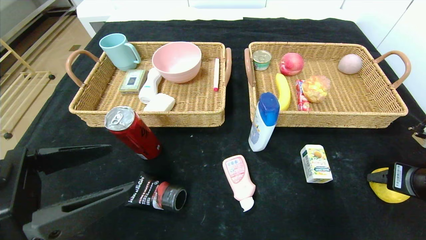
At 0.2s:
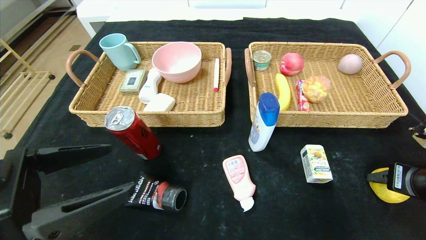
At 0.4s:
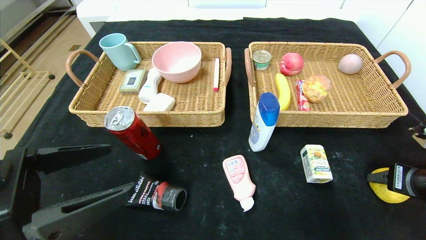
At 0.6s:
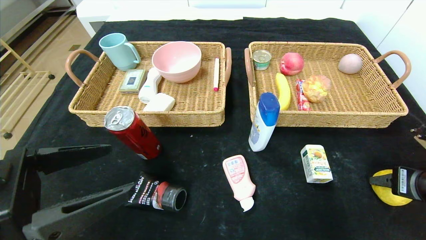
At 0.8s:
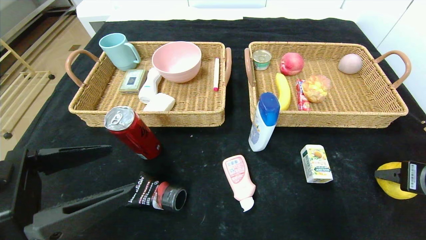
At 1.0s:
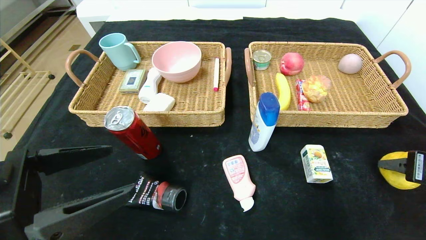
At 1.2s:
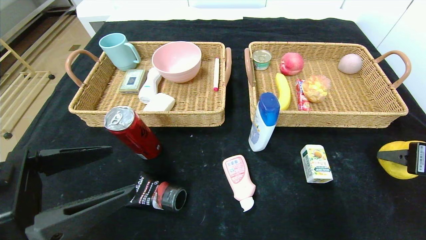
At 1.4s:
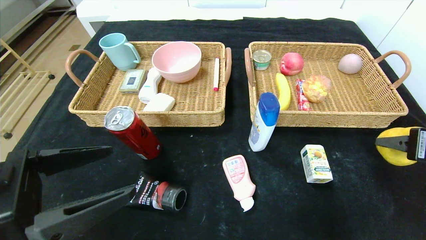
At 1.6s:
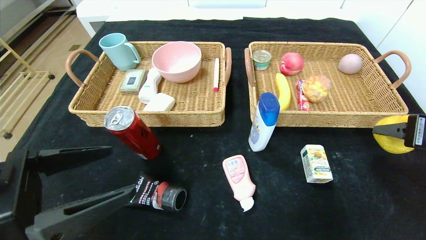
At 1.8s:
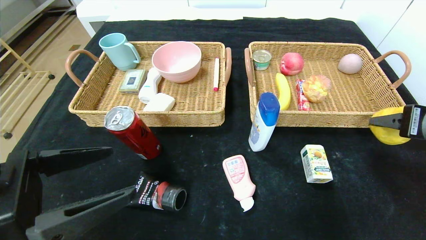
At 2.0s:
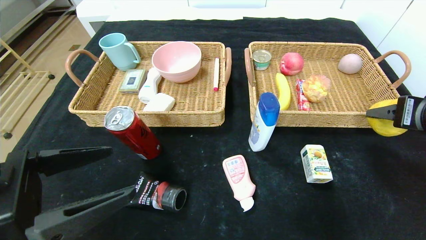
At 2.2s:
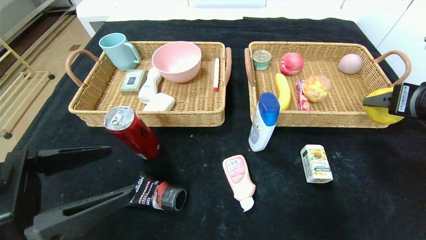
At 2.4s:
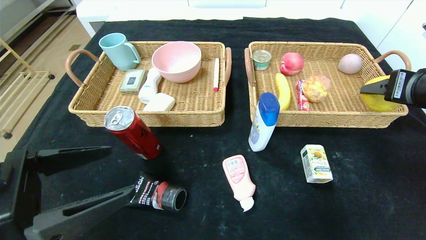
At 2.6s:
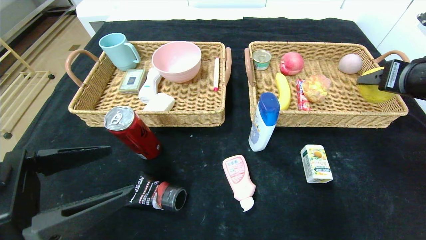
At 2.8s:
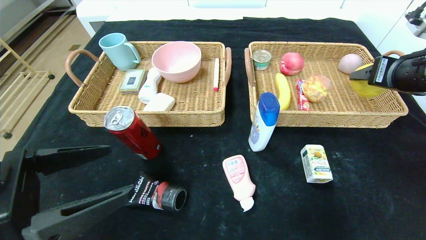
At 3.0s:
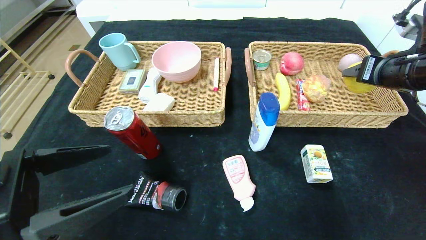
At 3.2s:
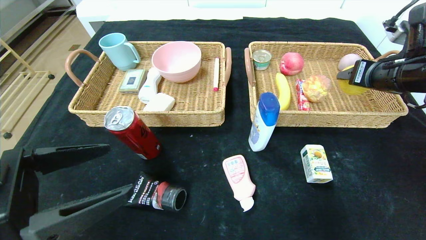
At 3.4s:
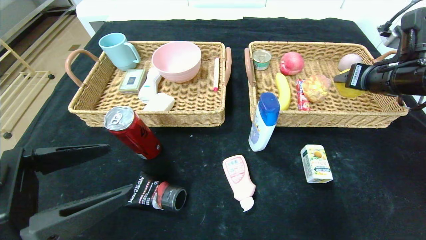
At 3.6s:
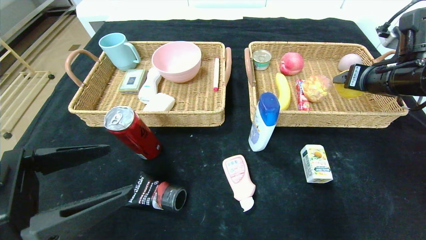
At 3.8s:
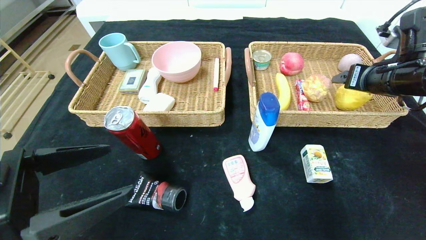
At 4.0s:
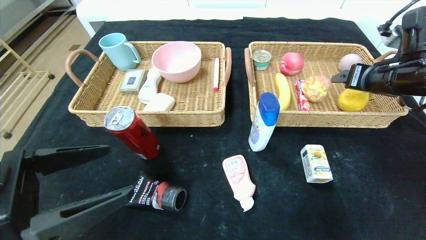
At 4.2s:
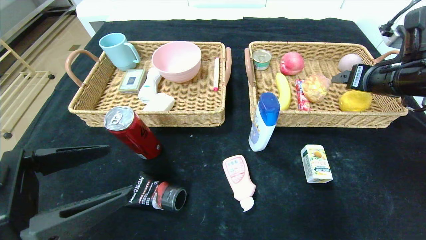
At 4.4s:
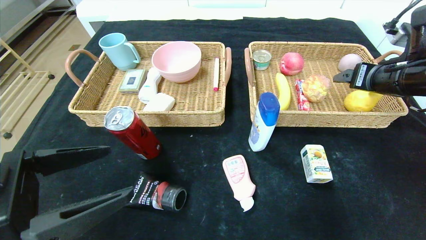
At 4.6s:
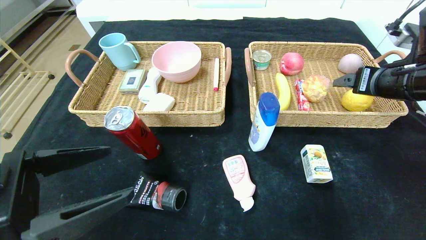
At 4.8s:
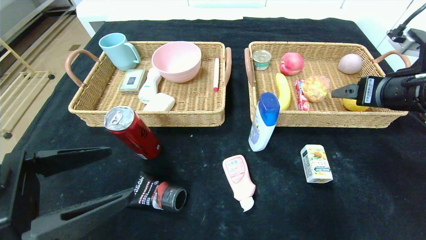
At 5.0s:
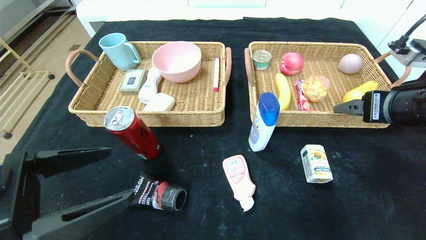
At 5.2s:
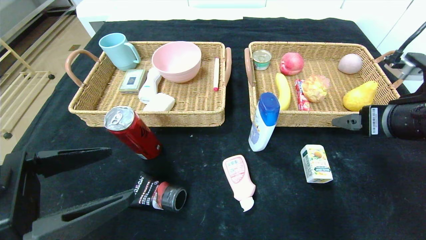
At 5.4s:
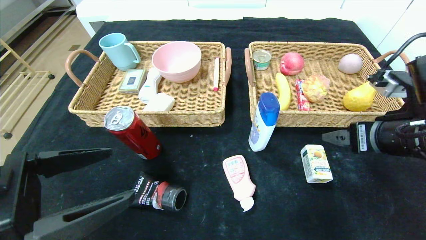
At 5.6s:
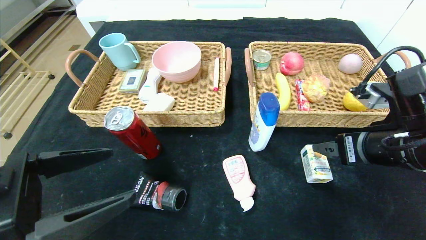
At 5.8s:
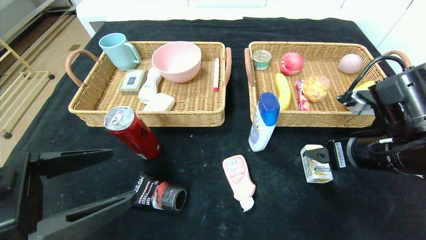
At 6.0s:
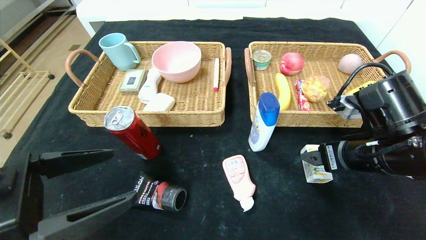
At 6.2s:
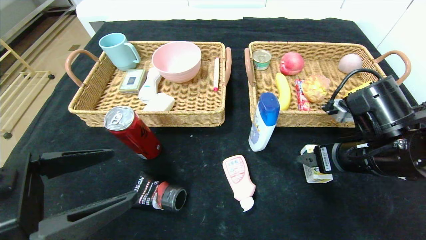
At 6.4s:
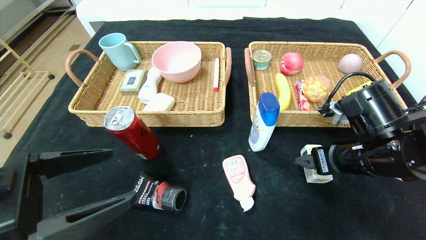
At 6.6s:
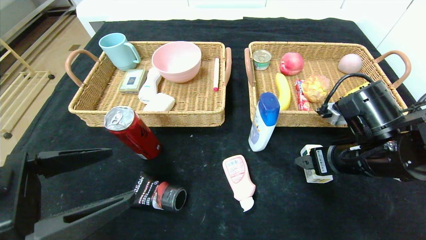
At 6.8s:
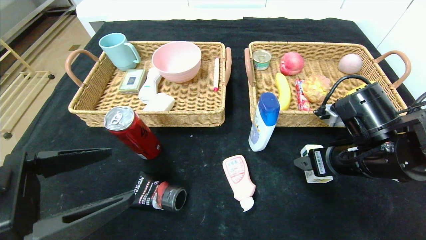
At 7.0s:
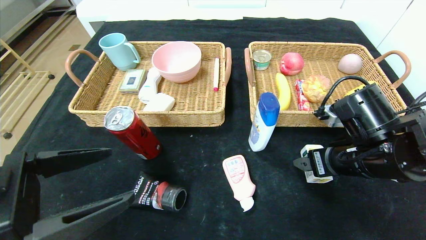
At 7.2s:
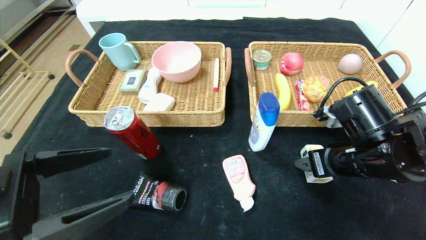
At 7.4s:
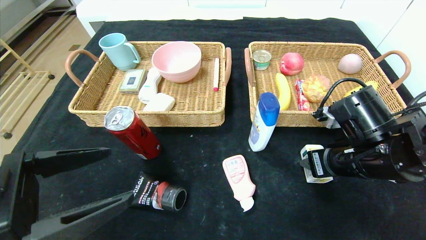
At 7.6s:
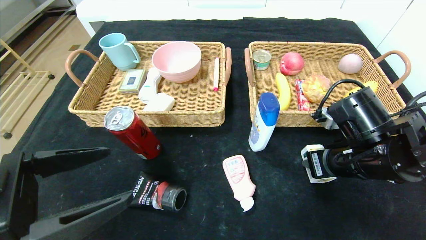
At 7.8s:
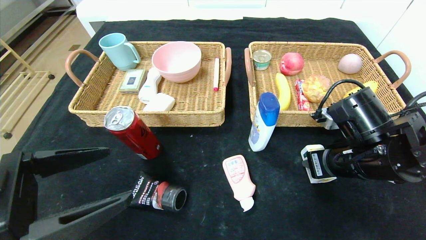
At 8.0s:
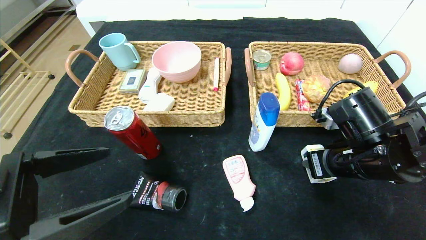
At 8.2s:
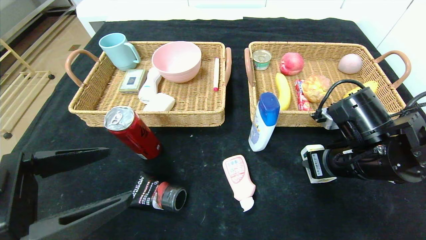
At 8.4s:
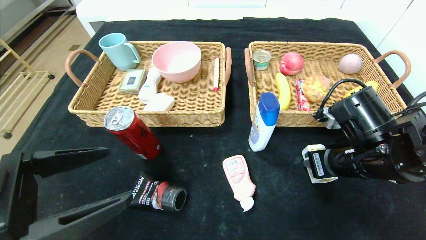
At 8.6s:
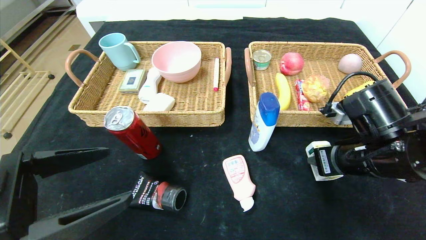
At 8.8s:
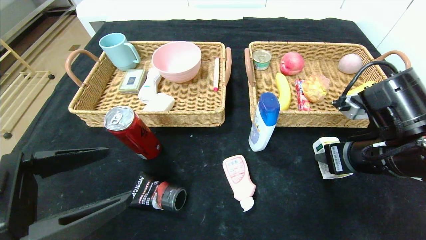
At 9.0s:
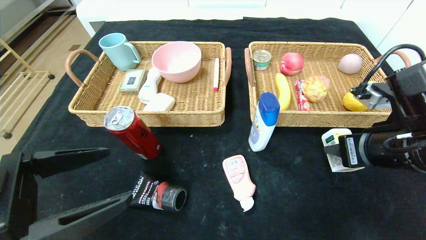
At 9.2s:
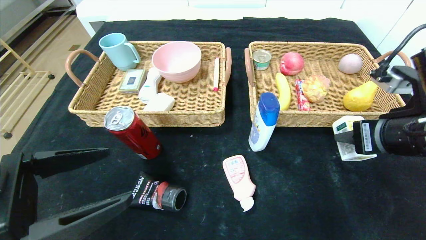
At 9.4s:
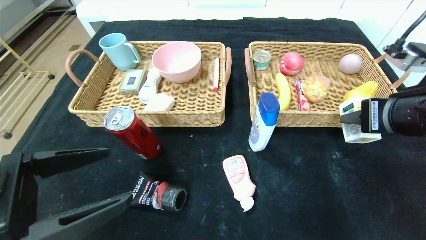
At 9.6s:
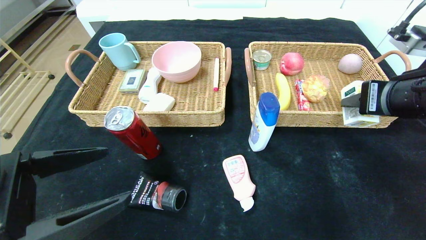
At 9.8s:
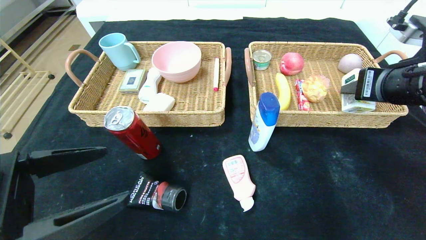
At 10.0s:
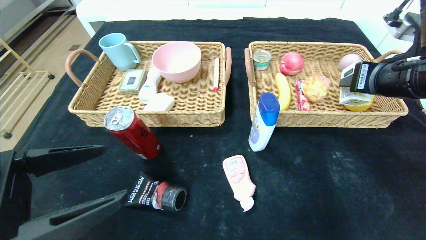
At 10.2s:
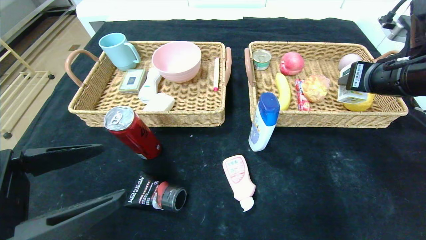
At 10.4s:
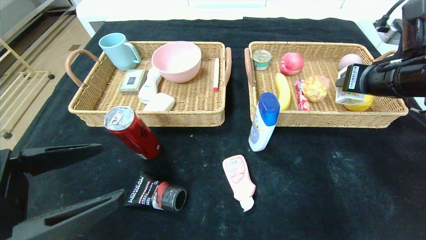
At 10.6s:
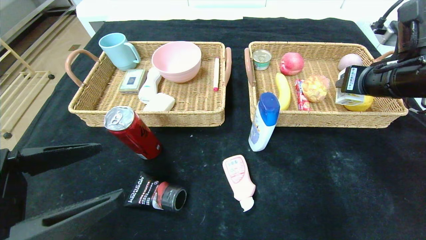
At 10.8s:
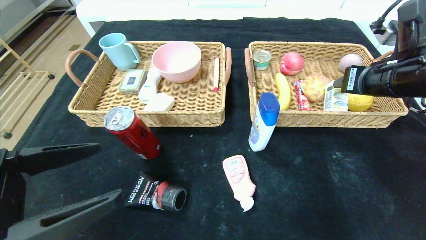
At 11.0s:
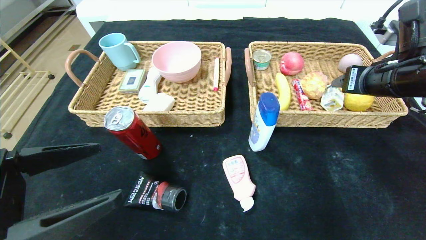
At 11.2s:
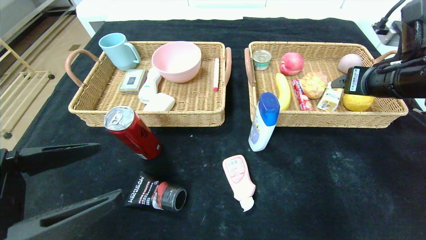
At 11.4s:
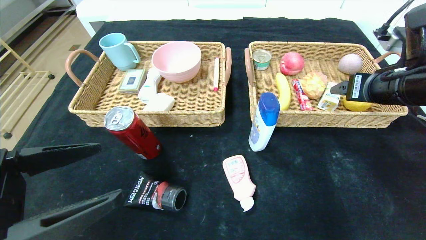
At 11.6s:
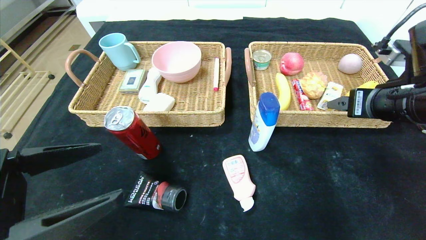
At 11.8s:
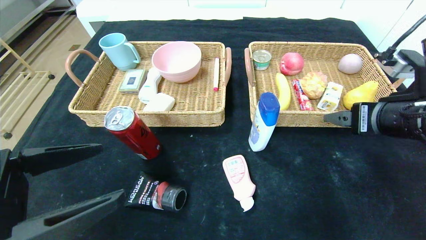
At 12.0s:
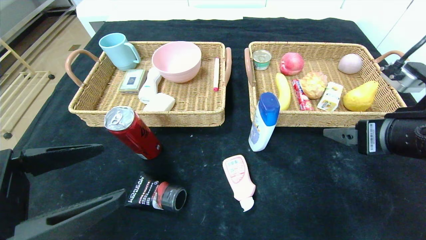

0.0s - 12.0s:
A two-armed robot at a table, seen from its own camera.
Step, 0.0s - 4.2s: Grasp the pear and put it in the right basket.
Step, 4.4s - 11.0s: Grasp the square chewing gum and put it in the right basket.
0.0s - 1.6s: The right gripper shifts about 10 cm upward.
1.6s - 3.0s: The right gripper is displaced forward by some 10 cm.
3.0s - 4.4s: The right gripper opens its fingers.
4.4s - 6.0s: The right gripper travels backward, to the left and downward by roughly 15 cm.
6.0s - 7.6s: The right gripper closes its fingers.
7.6s - 9.0s: The right gripper changes place by roughly 5 cm.
9.0s - 10.4s: The right gripper heads forward and upward, covering roughly 10 cm.
10.4s - 12.0s: The right gripper is displaced backward by roughly 10 cm, and opens up.

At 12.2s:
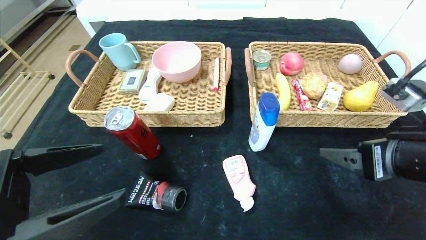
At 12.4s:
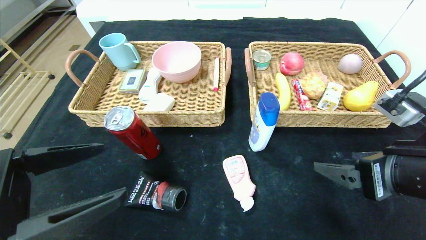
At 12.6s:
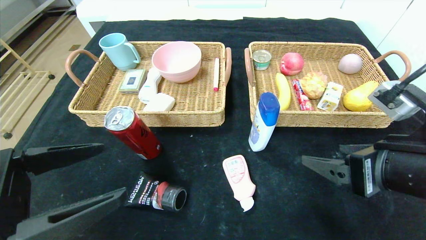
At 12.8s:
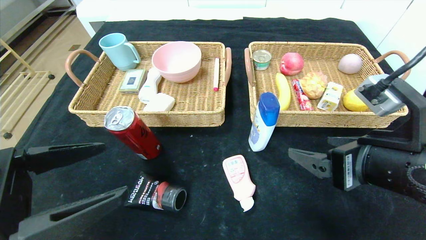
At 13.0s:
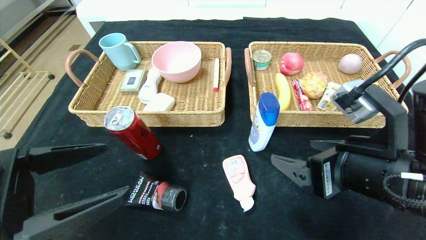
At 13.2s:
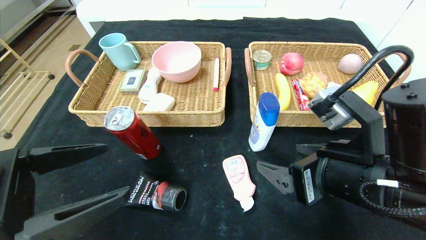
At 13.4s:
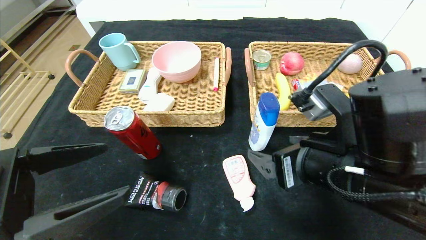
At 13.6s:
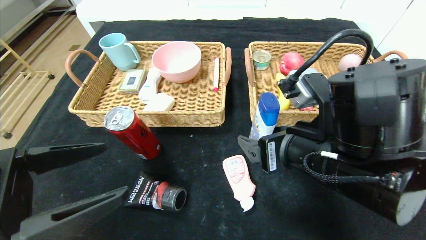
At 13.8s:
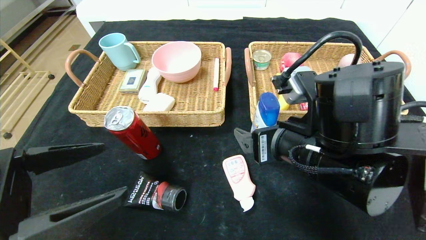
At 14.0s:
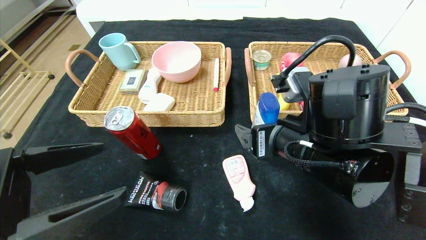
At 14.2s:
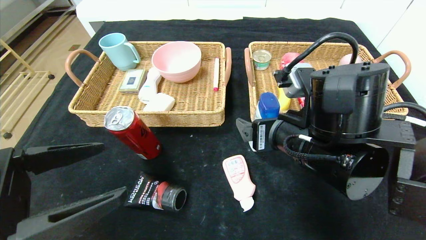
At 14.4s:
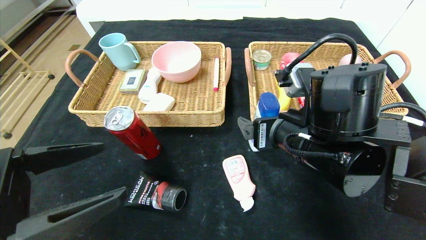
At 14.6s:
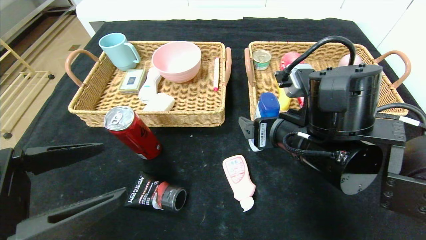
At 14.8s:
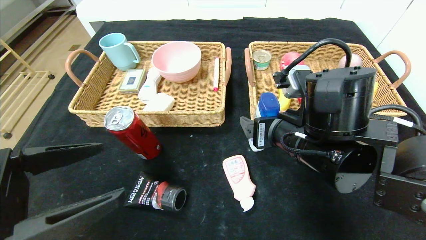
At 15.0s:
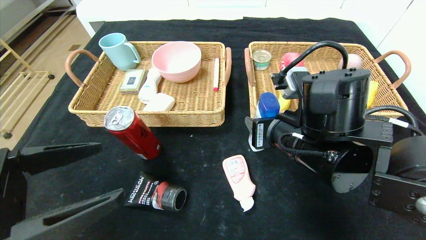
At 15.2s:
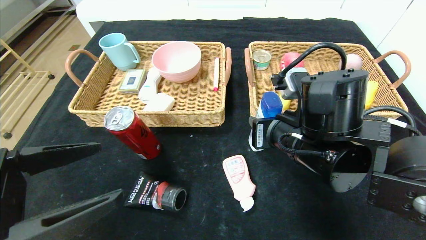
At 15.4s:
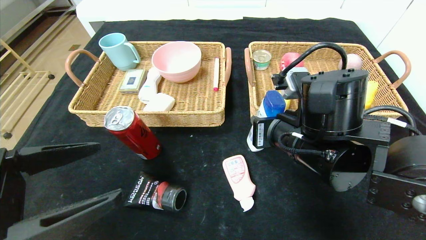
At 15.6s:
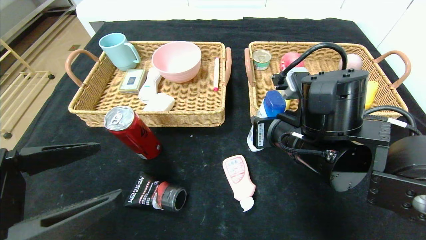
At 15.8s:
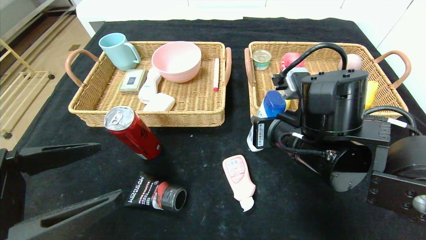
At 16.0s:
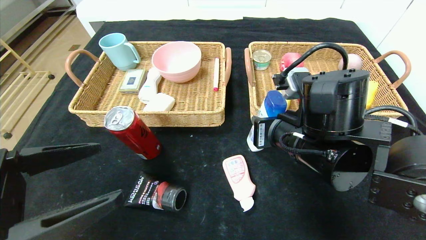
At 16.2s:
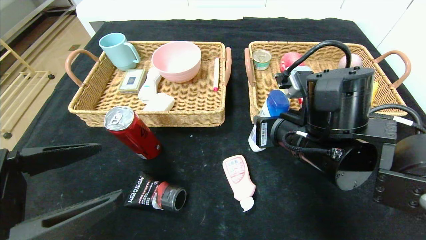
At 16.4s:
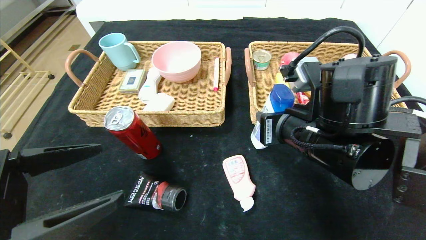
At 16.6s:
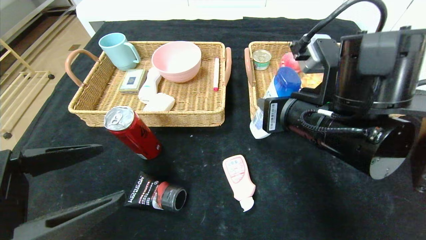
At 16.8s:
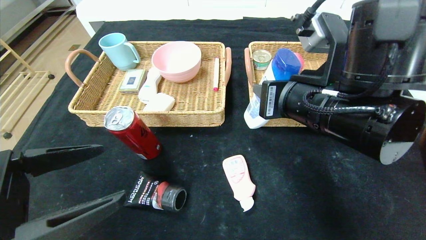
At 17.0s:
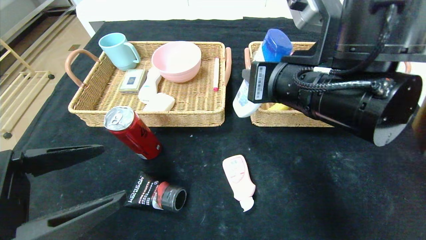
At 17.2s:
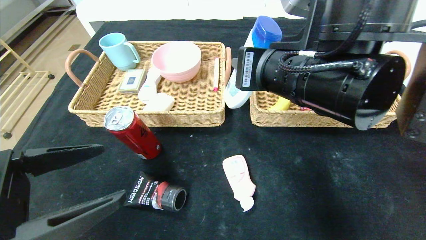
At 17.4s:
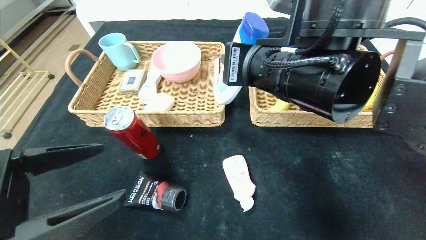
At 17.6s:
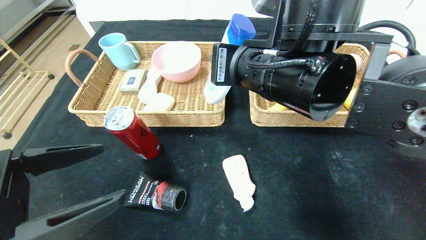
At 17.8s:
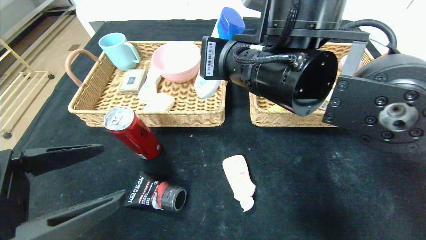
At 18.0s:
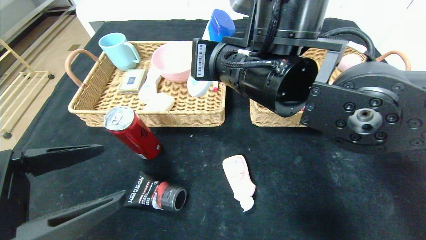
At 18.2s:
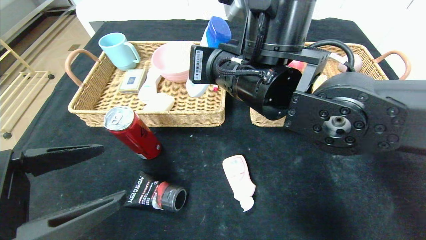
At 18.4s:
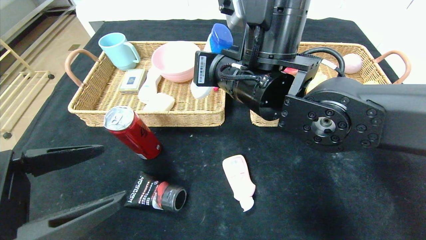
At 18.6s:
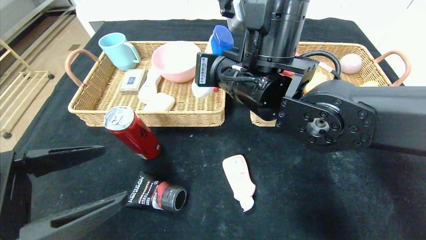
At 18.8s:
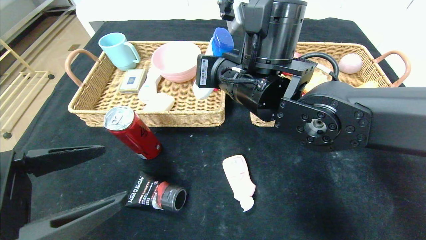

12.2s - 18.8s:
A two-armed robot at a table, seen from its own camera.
12.2s - 13.8s: The right gripper is displaced to the left by roughly 15 cm.
13.8s - 15.4s: The right gripper closes its fingers.
15.4s - 17.2s: The right gripper shifts roughly 10 cm upward.
17.2s - 18.8s: The right gripper is displaced forward and to the left by about 10 cm.
